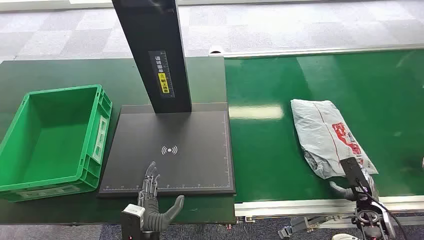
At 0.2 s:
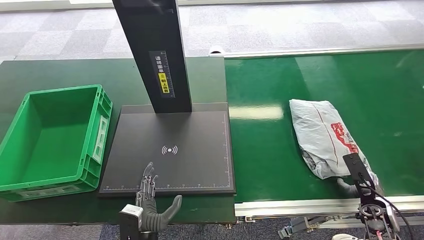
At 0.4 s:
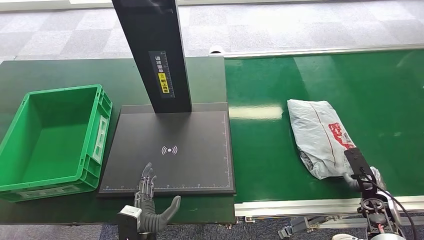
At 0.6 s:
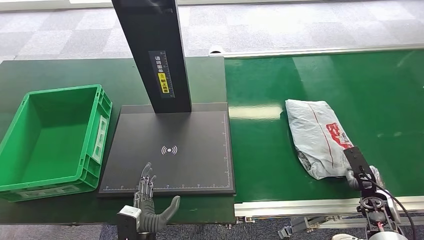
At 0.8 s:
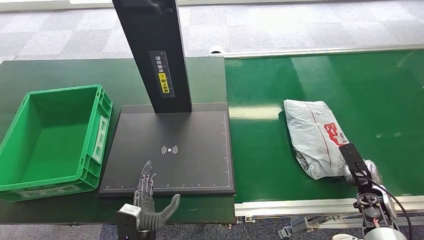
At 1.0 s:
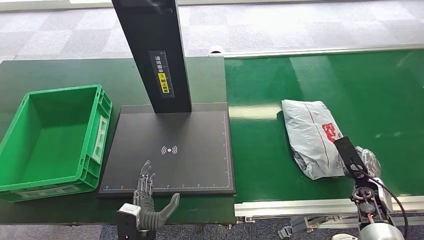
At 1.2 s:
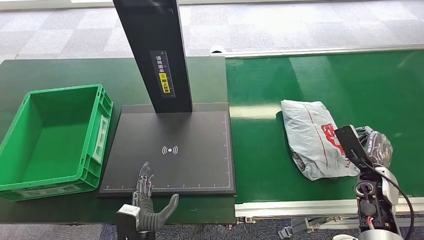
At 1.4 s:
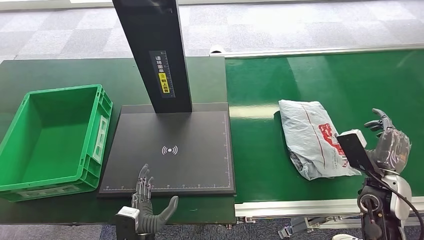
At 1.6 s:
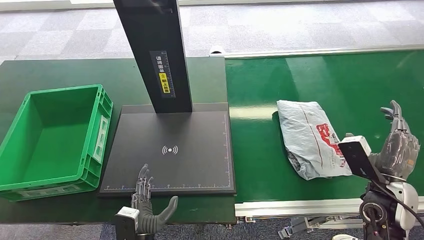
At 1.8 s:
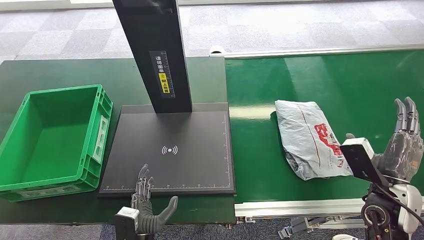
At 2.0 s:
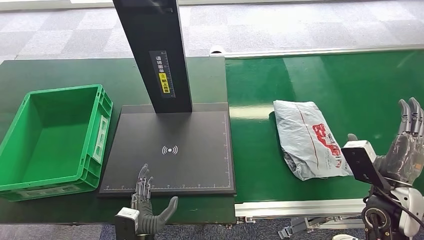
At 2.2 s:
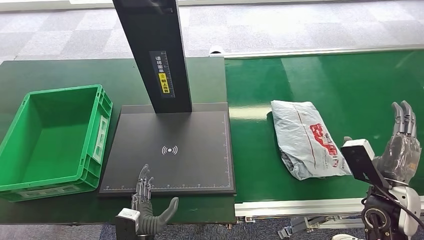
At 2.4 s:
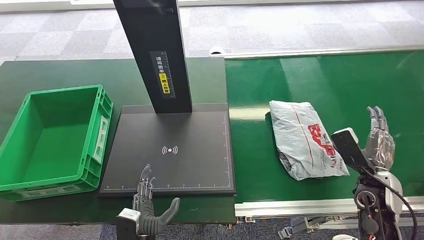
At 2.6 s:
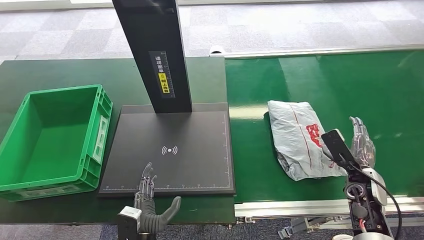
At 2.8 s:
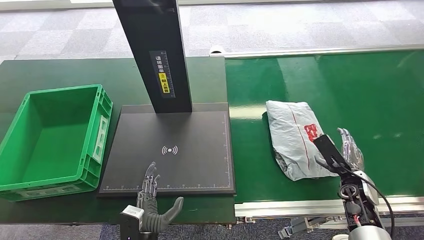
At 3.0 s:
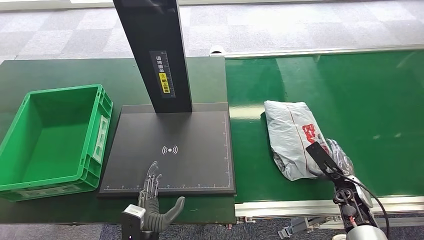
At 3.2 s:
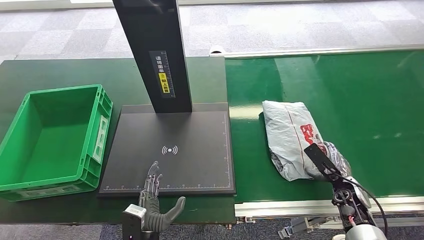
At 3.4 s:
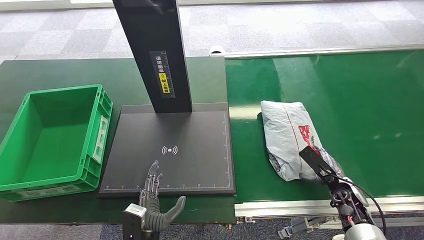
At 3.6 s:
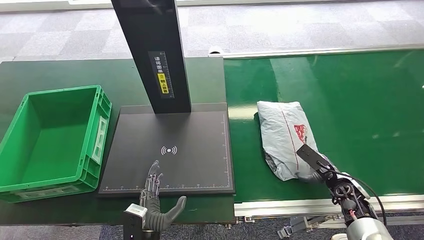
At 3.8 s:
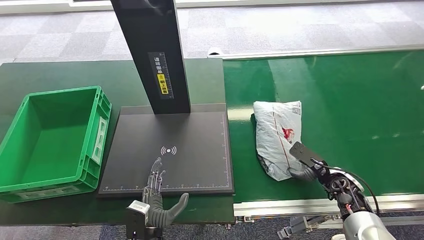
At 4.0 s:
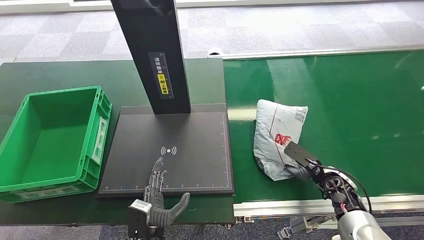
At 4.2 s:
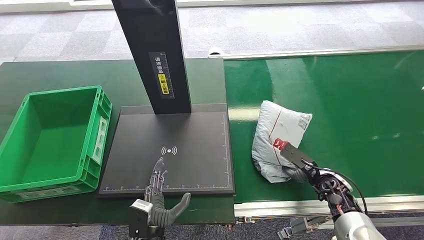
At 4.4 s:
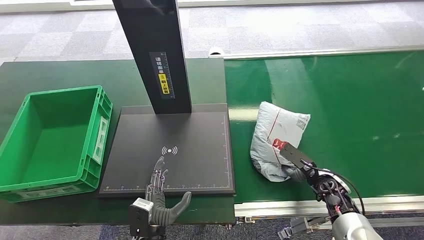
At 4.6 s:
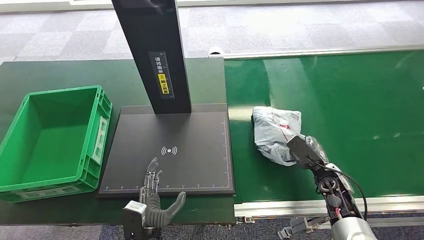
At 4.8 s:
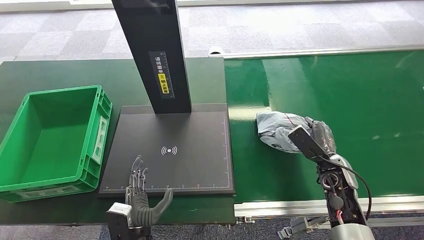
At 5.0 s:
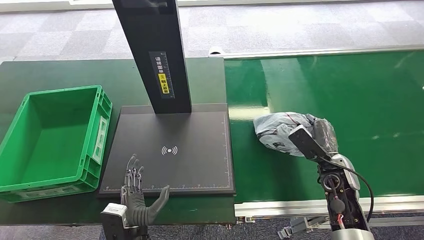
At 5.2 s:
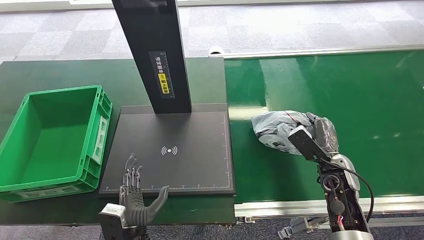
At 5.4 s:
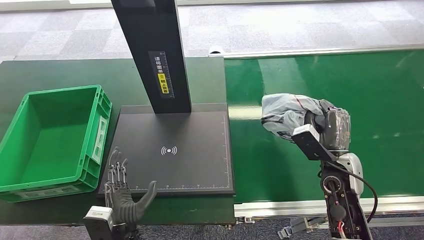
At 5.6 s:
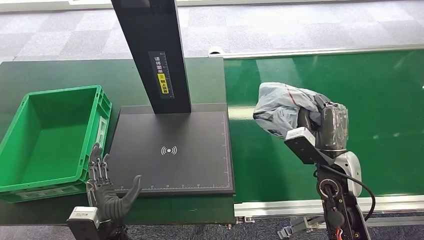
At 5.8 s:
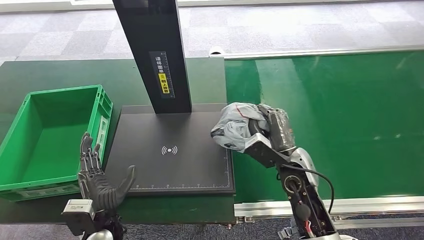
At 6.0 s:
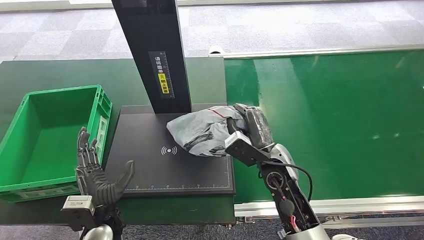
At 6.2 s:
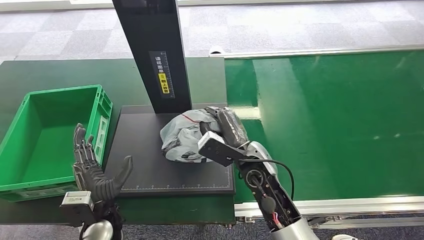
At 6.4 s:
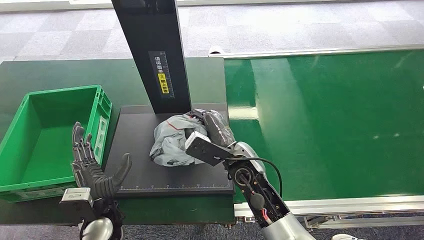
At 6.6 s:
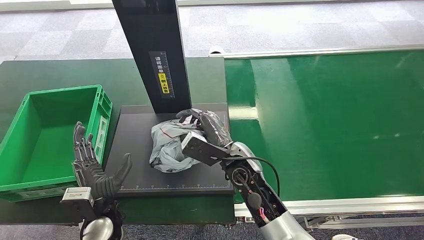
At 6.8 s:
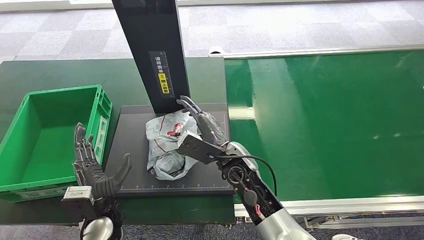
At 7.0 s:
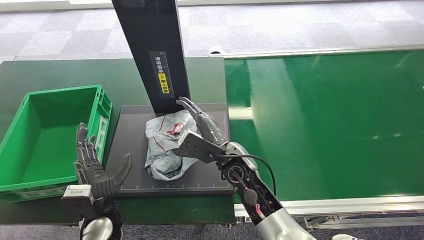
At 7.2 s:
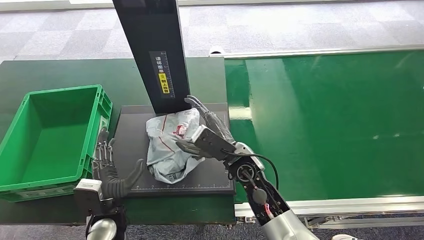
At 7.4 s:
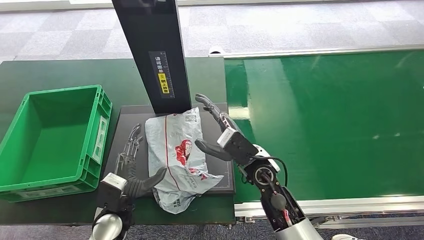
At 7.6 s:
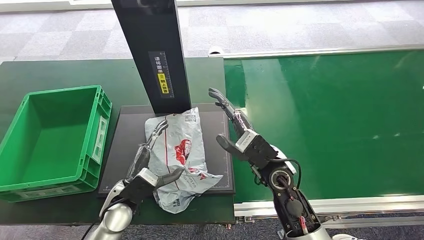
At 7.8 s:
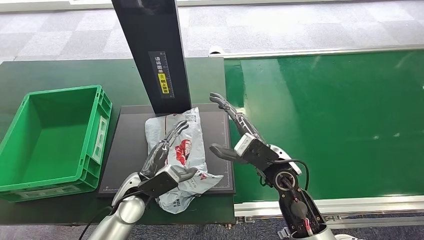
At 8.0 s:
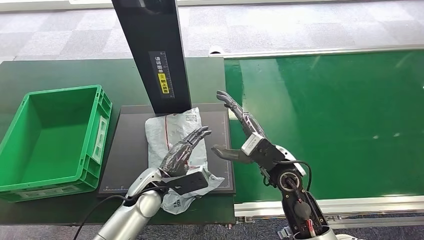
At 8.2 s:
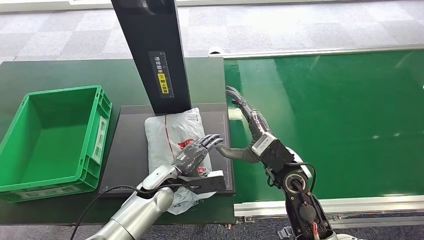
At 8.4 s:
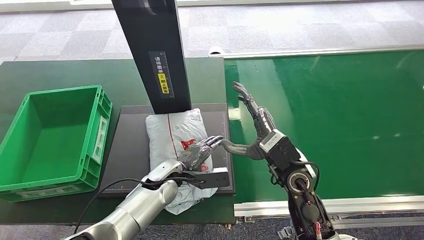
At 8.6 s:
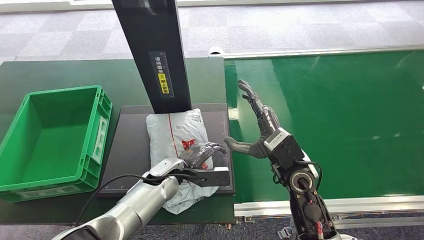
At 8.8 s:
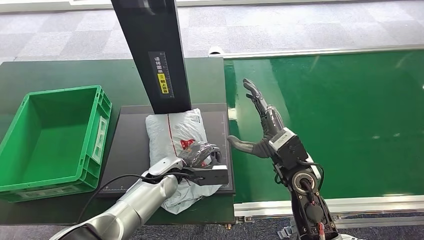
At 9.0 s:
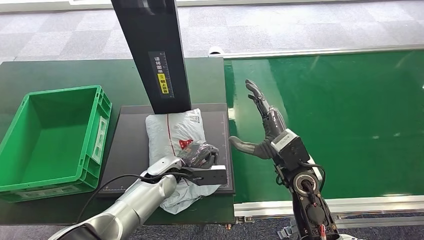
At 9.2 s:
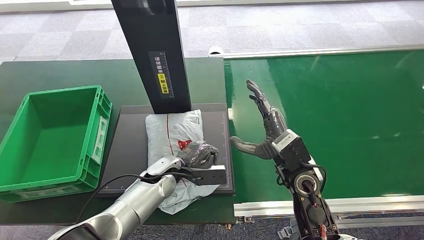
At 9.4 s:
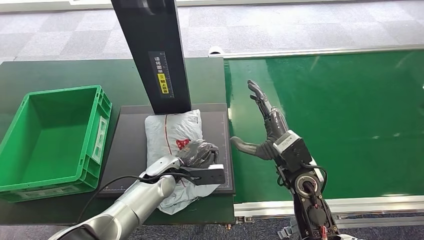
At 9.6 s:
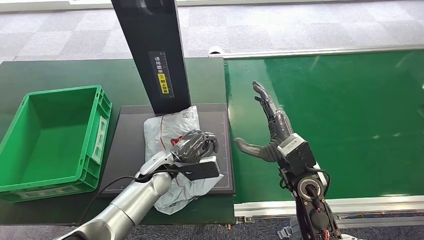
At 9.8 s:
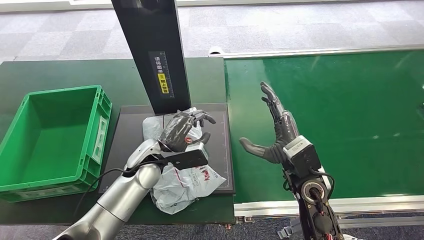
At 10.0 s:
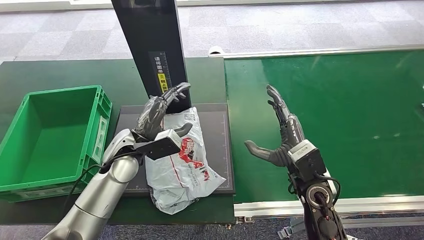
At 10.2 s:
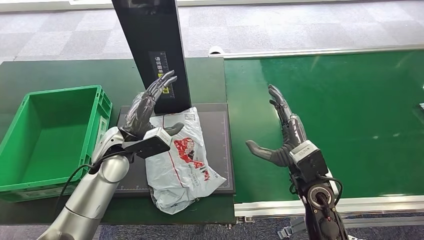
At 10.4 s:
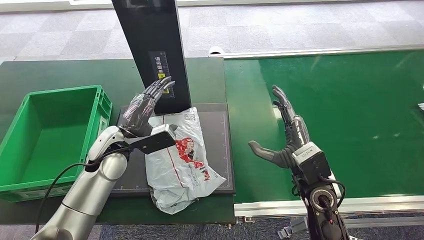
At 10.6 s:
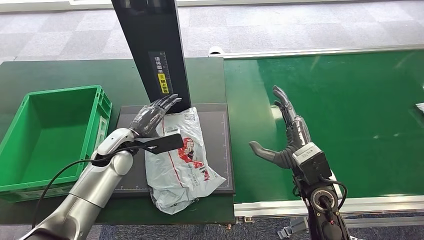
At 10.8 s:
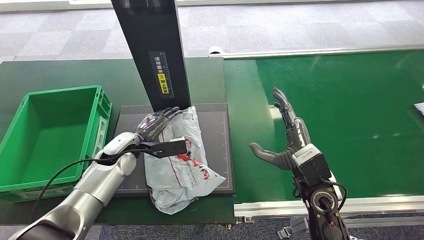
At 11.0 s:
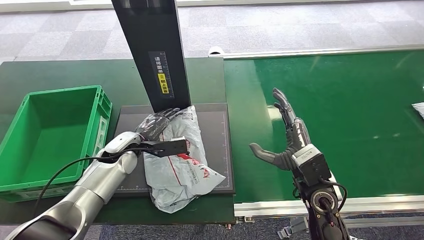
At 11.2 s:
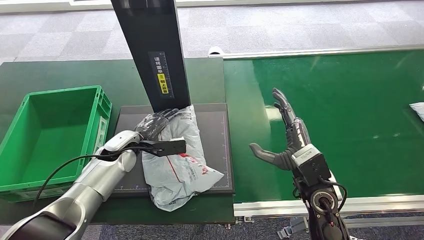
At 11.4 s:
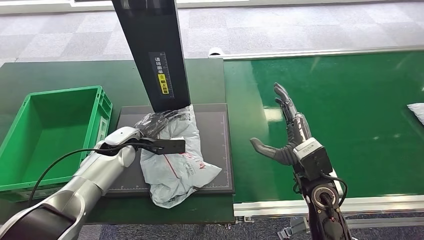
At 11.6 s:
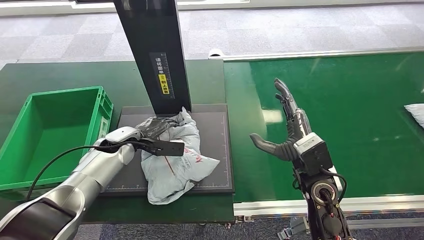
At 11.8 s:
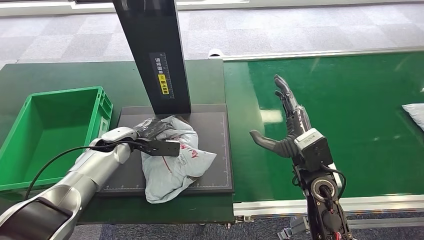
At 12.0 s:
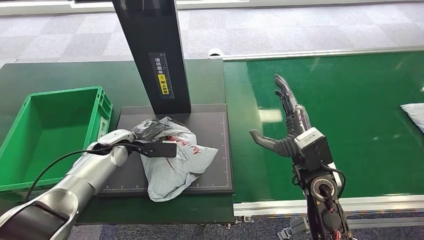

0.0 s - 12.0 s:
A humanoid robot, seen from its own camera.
Step, 0.0 s - 5.8 s: Pick up the package from the conveyor belt.
Step, 6.0 s - 8.8 s: Place the package onto the inbound machine.
1.6 s - 3.0 s: The right hand shifts roughly 10 cm downward.
6.0 s - 7.6 s: The left hand travels forward by approximately 5 cm; the right hand reaches some 10 cm to the left, then returns.
7.6 s - 9.0 s: The left hand travels forward and to the right by roughly 10 cm. Meanwhile the right hand shifts by approximately 5 cm.
9.0 s - 10.4 s: The left hand moves upward and to the left, approximately 15 cm.

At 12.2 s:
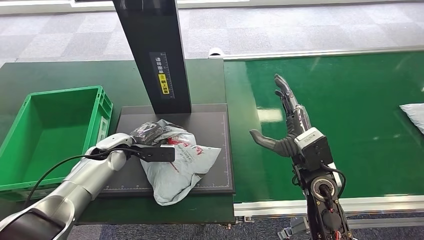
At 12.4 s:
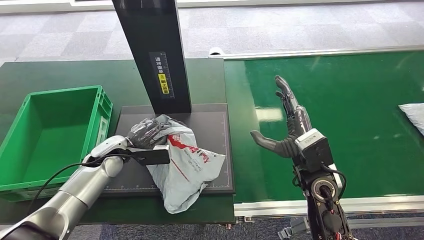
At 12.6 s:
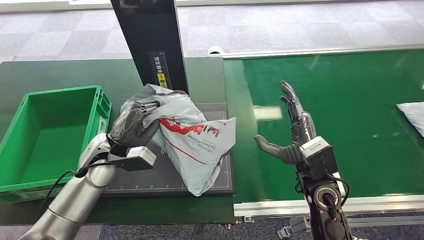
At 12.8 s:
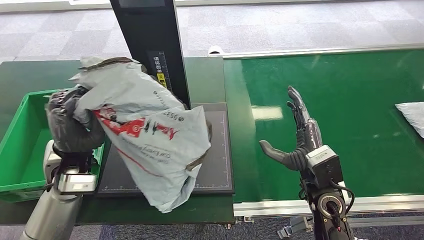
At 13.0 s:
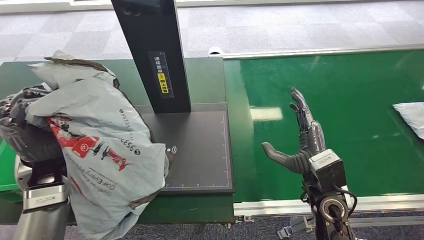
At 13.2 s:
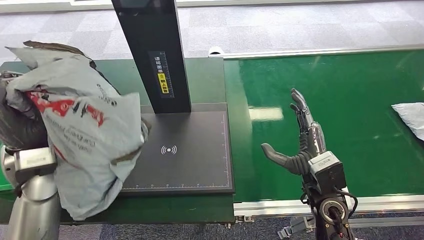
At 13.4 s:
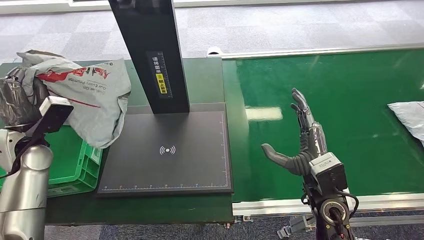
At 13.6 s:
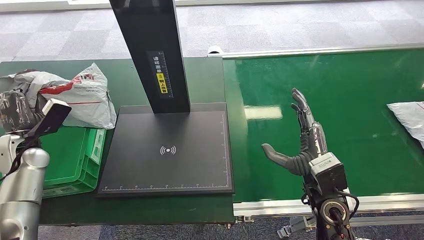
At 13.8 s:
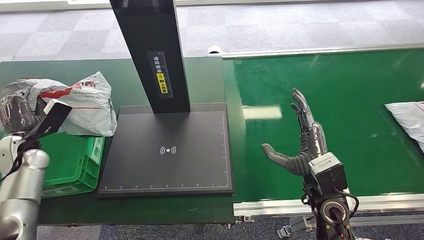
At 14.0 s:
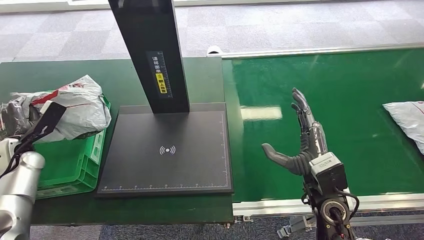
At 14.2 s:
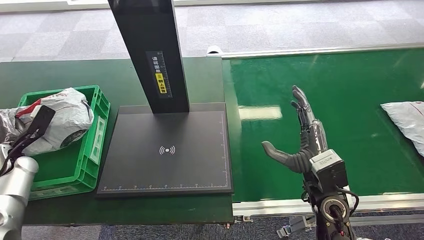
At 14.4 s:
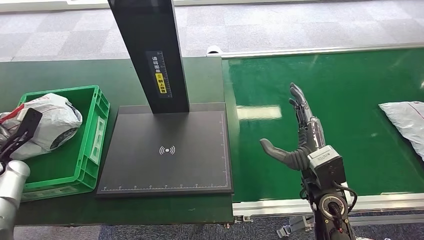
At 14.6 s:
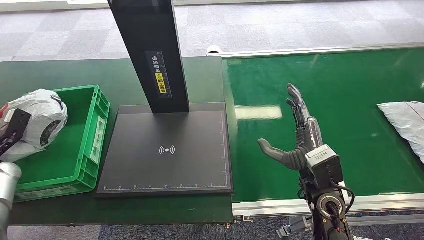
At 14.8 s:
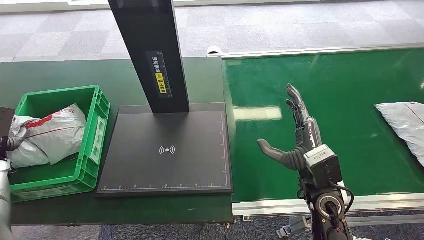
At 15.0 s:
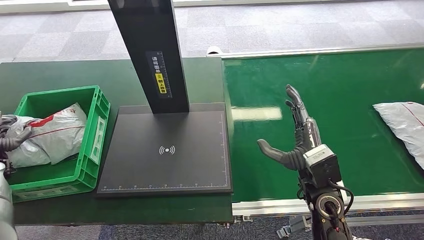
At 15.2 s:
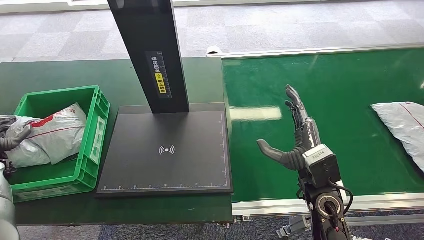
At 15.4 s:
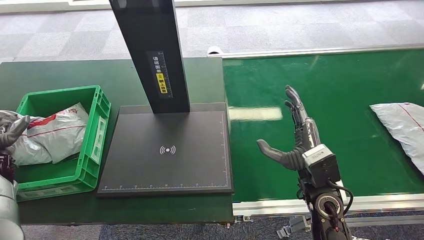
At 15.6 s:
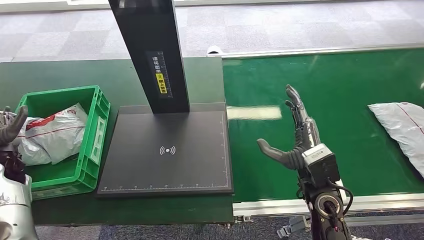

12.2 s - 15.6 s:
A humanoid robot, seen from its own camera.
Step, 12.8 s - 15.4 s: Place the package into the parcel locker.
